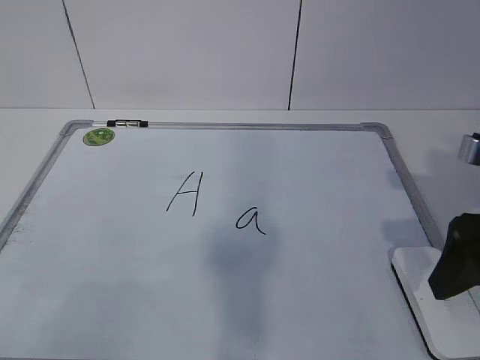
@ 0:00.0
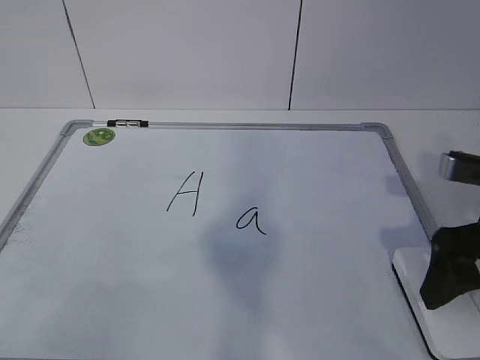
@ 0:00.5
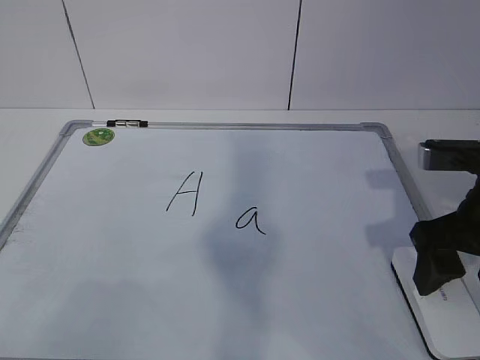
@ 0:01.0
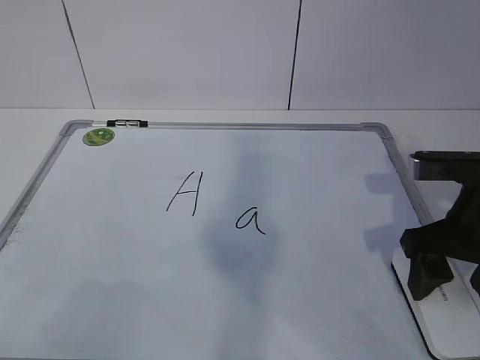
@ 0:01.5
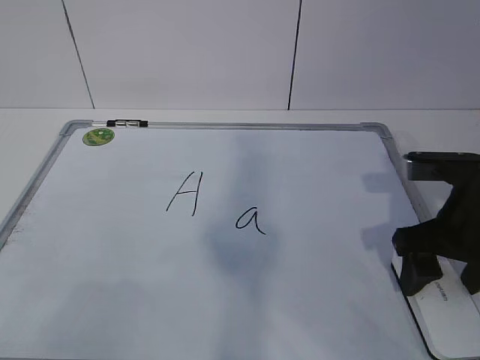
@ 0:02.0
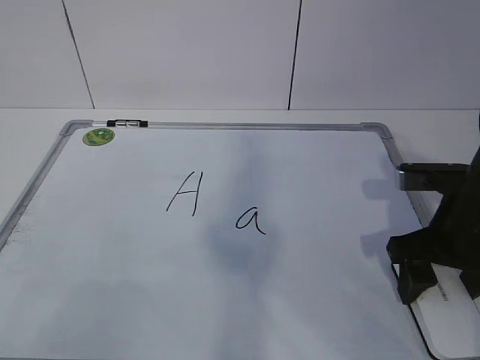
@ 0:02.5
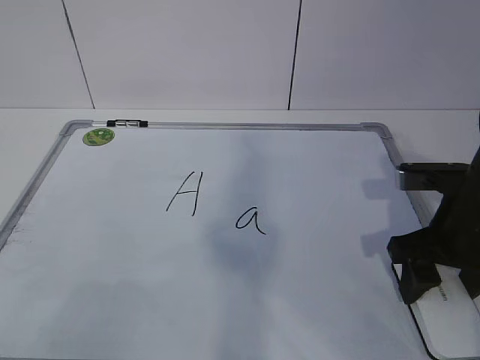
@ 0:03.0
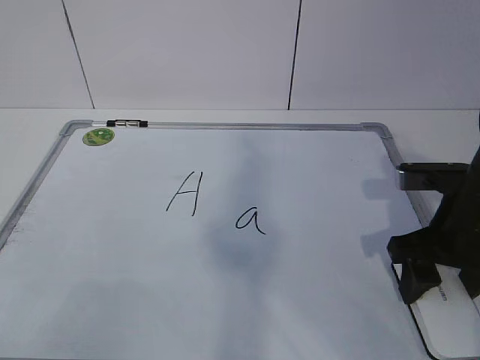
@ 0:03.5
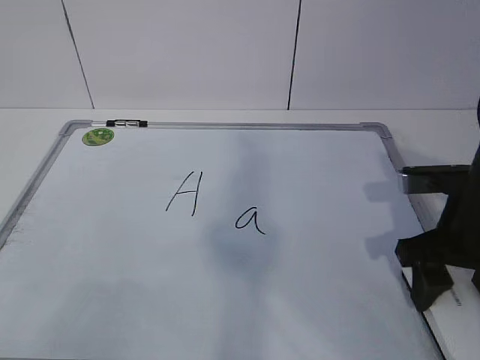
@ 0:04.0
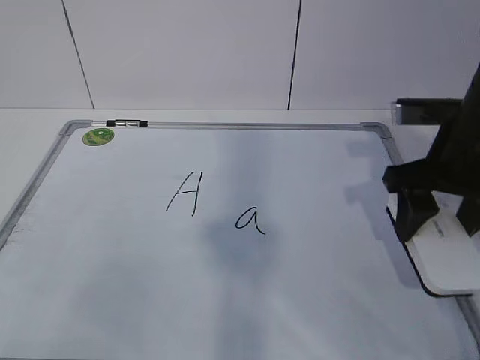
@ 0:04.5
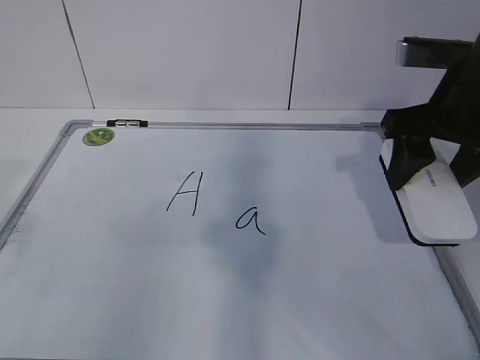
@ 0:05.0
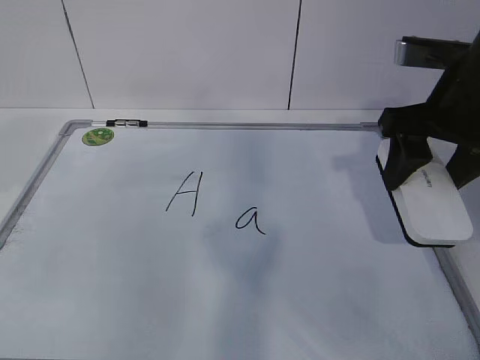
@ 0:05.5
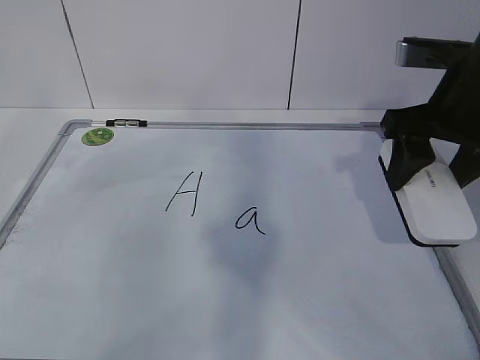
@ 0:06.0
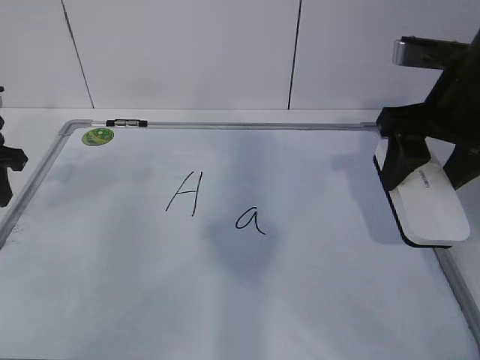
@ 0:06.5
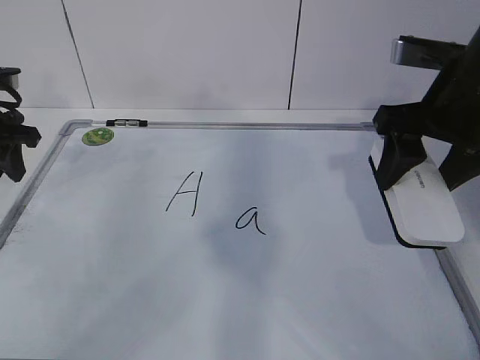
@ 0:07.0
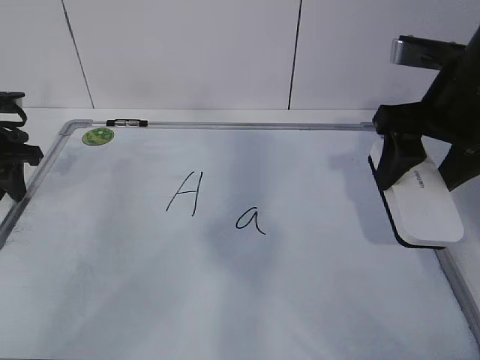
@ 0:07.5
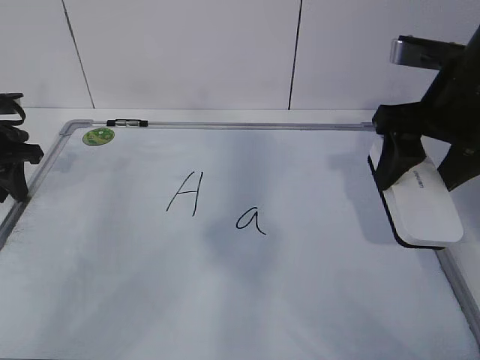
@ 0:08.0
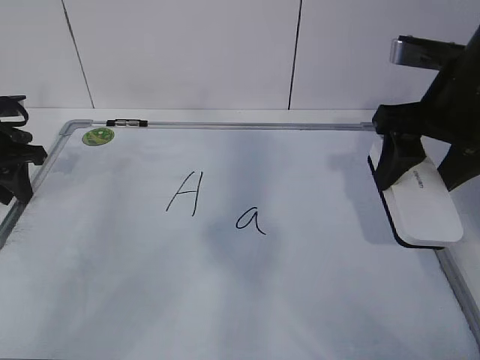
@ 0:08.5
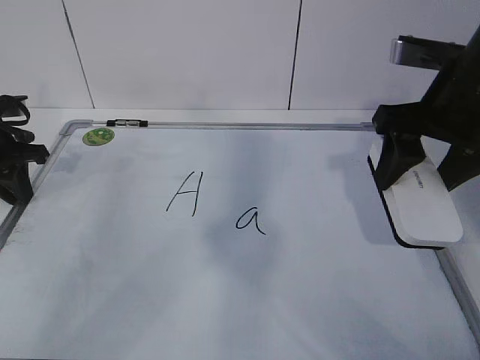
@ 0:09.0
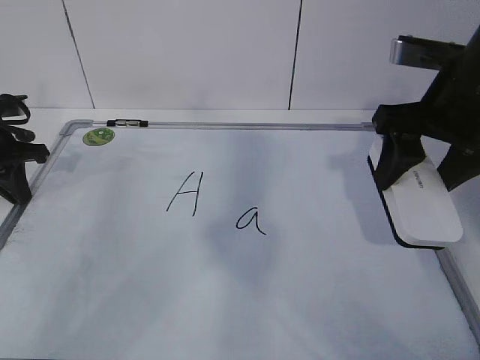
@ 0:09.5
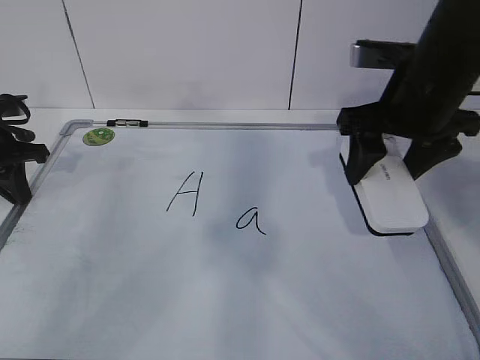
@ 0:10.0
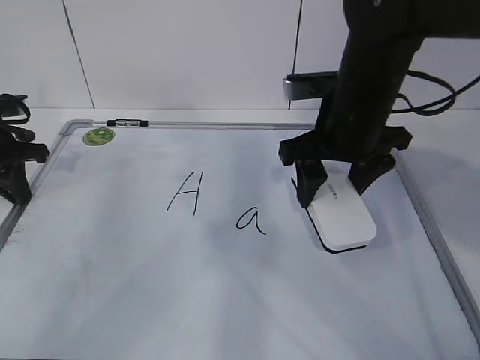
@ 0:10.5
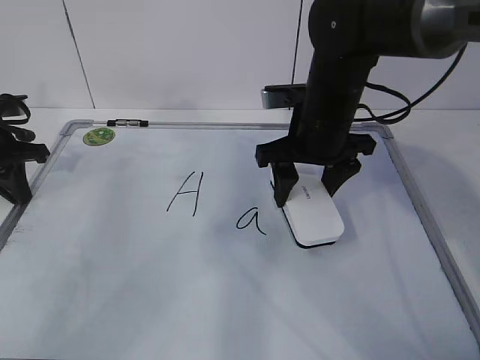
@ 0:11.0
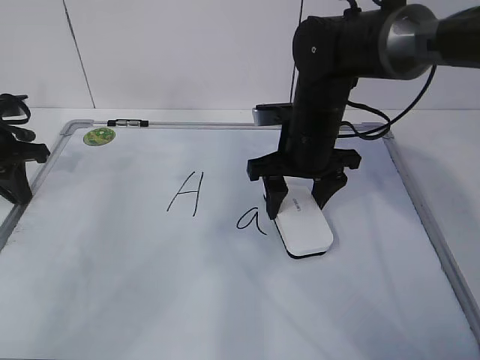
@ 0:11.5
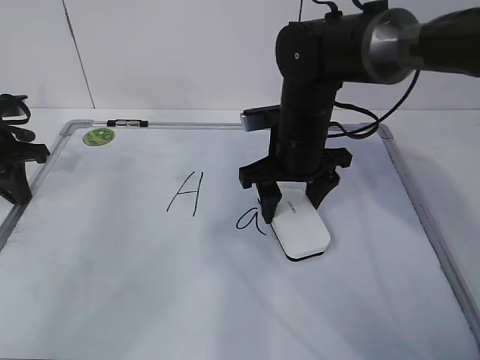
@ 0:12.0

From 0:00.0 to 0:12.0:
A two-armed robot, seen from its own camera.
Task of the whole recording: pick up the eraser on the blackboard and erase the letter "a".
Step, from 0:00.0 to 0:02.0: Grab the eraser with your right hand.
Step, from 0:02.5 to 0:06.5: Hold the drawing board steady with your left hand.
Step, from 0:07.0 to 0:10.5: Erase the letter a with your right hand.
From 0:00.0 to 0:02.0: The right gripper shifts by roughly 5 cm.
From 0:02.0 to 0:04.0: The right gripper closes its fingers.
From 0:04.0 to 0:06.0: The right gripper moves upward, approximately 10 cm.
From 0:06.0 to 0:08.0: The left gripper heads downward and forward, covering approximately 15 cm.
From 0:08.0 to 0:10.0: The left gripper closes.
From 0:10.0 to 0:12.0: The right gripper goes roughly 15 cm to the left, downward and forward.

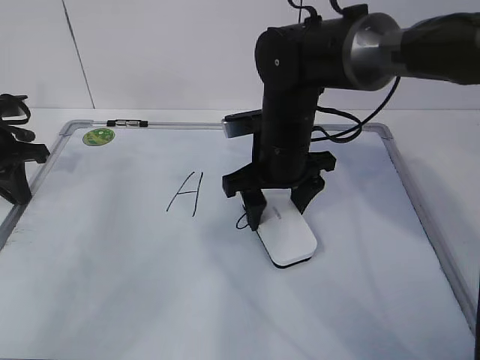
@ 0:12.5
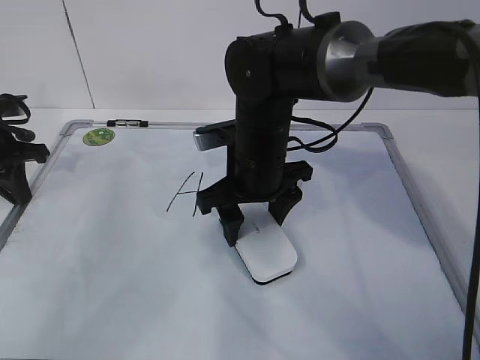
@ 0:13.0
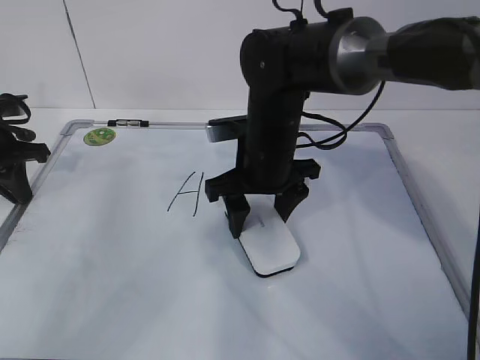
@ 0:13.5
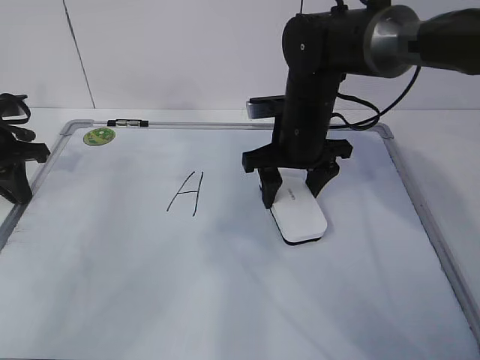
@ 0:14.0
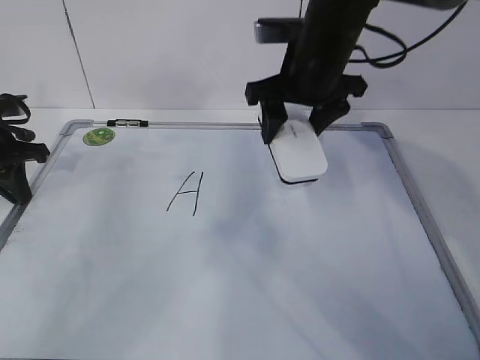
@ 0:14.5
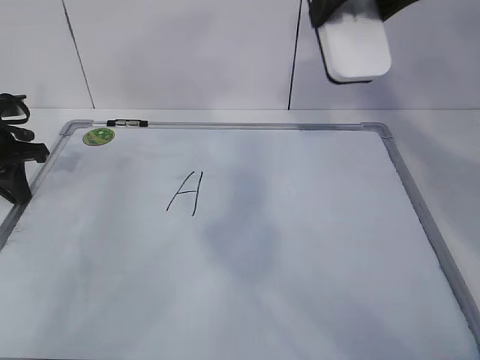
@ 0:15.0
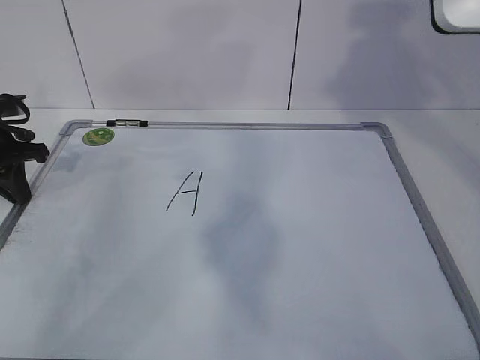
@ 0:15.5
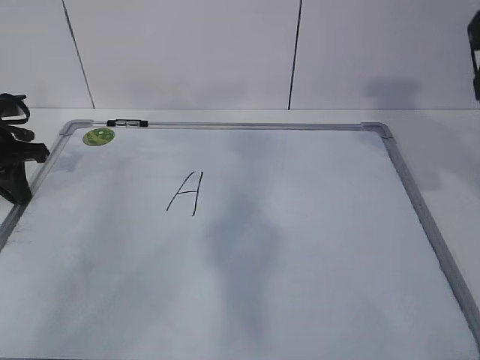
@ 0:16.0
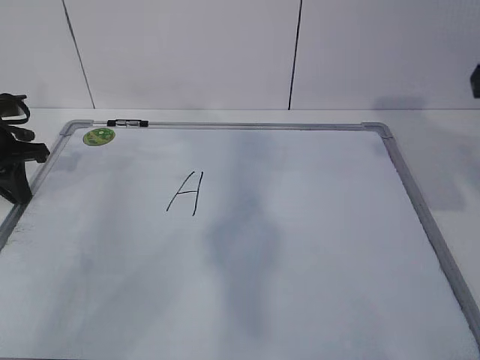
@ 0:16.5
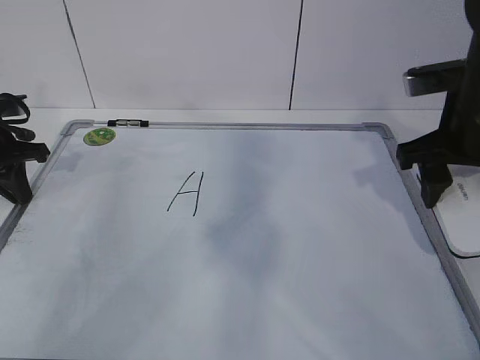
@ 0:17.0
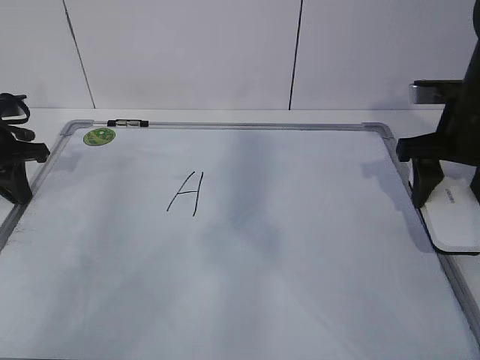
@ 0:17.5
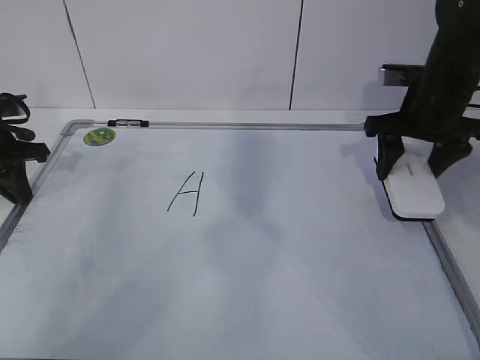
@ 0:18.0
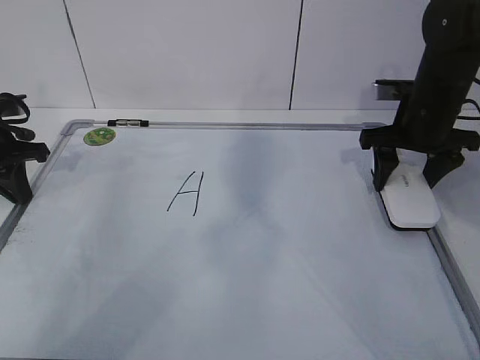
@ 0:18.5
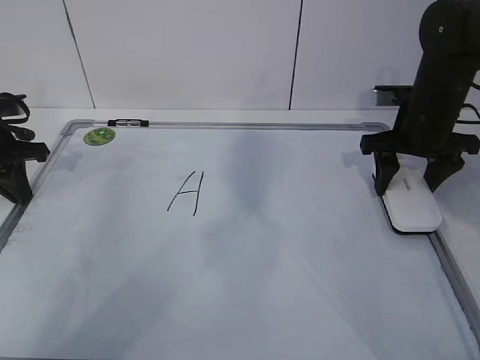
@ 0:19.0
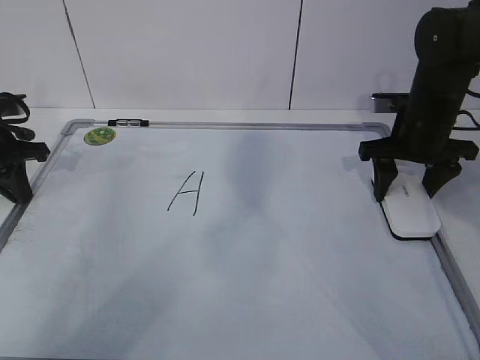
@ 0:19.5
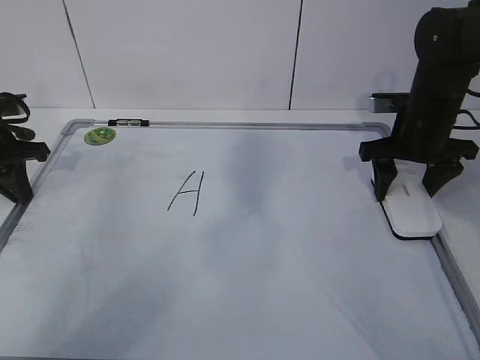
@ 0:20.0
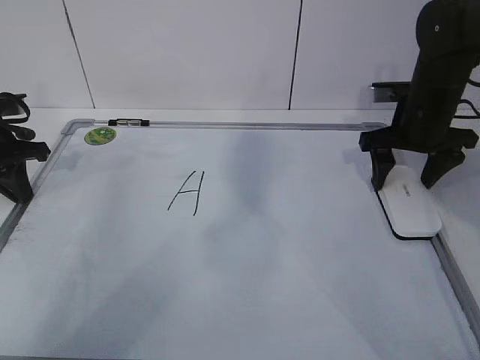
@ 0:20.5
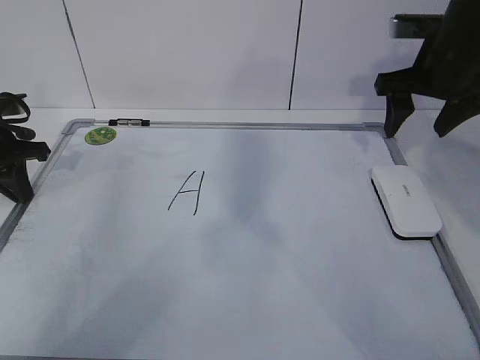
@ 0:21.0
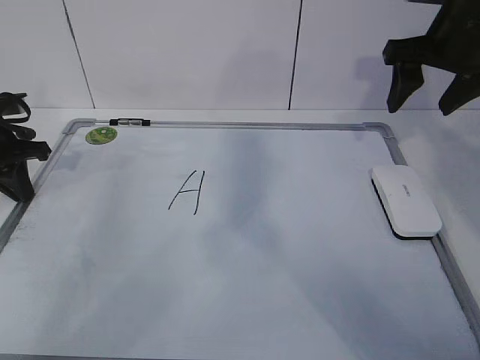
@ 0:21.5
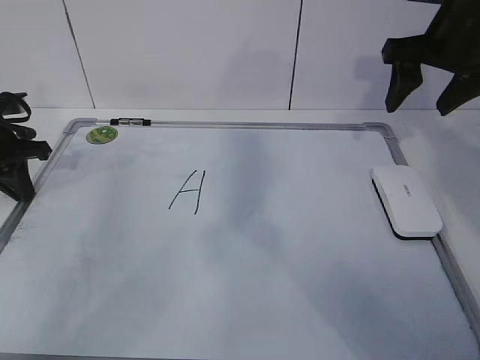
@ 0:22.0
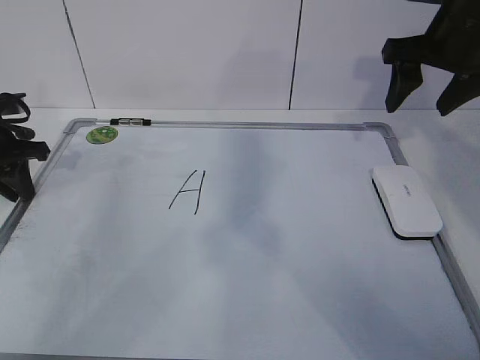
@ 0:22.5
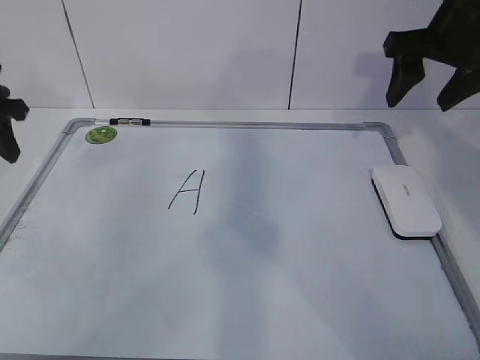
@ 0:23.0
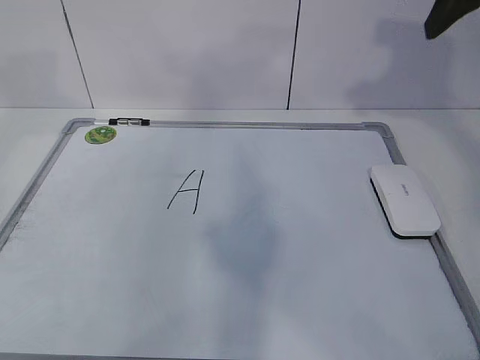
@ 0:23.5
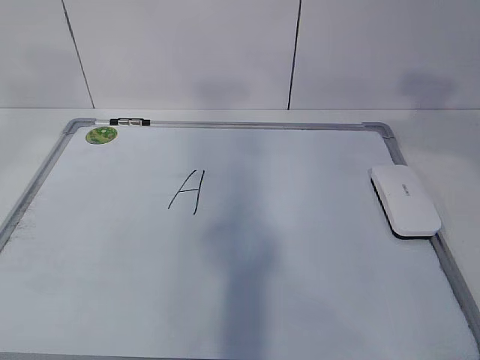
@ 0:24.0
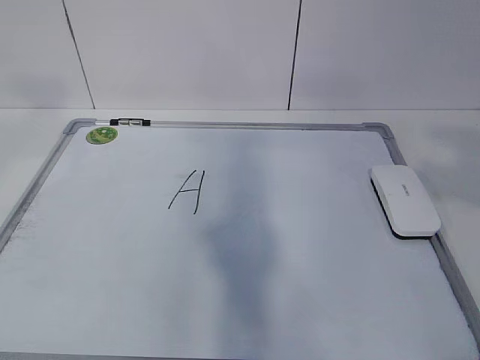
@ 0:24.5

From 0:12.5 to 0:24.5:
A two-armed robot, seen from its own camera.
Task of the whole recording: pick up the eraser on the blackboard and erase the letter "a".
Step, from 0:12.5 to 0:15.5: Put down the eraser with your right hand.
From 0:12.5 to 0:14.5: The right gripper shifts roughly 10 cm upward.
From 0:14.5 to 0:16.5: The right gripper is displaced to the right, backward and upward by some 20 cm.
From 0:16.5 to 0:18.5: The right gripper shifts roughly 20 cm forward and downward.
From 0:18.5 to 0:20.5: The right gripper opens.
From 0:20.5 to 0:22.5: The left gripper opens, while the right gripper moves upward, approximately 10 cm.
From 0:22.5 to 0:24.5: The right gripper is displaced backward by approximately 30 cm. The left gripper heads upward and backward, covering roughly 40 cm.

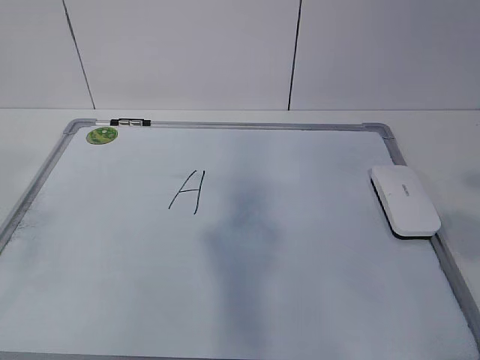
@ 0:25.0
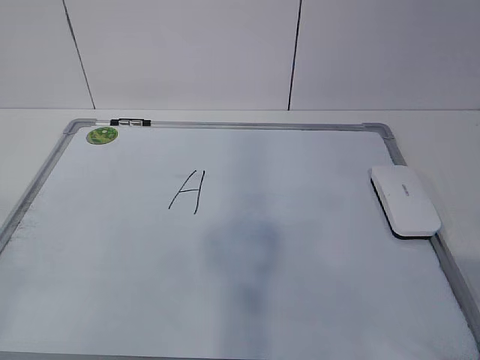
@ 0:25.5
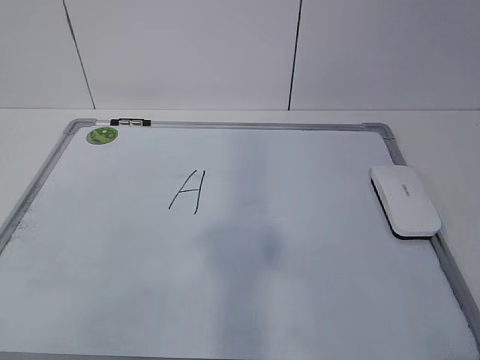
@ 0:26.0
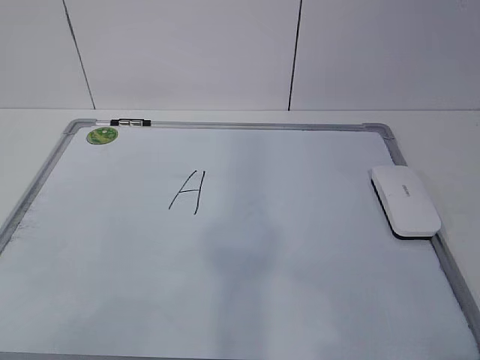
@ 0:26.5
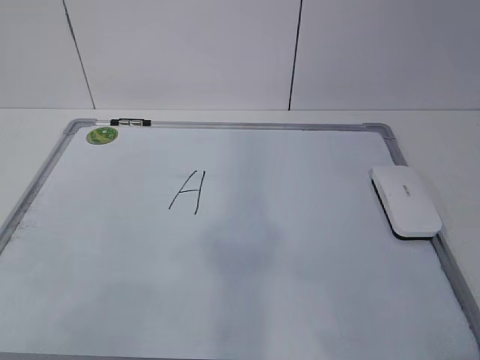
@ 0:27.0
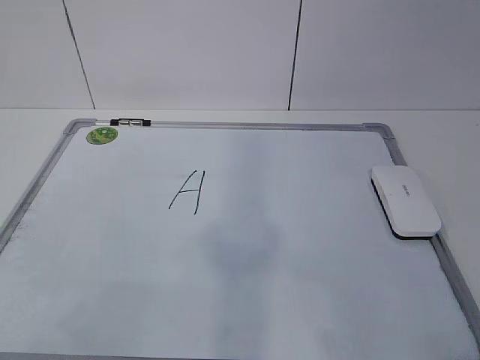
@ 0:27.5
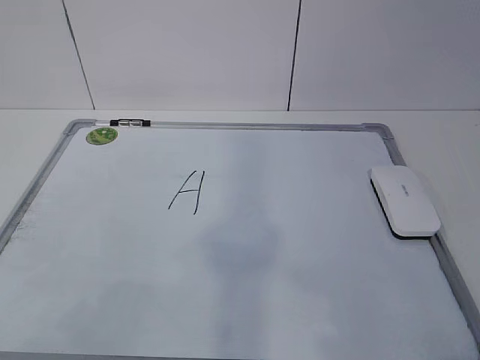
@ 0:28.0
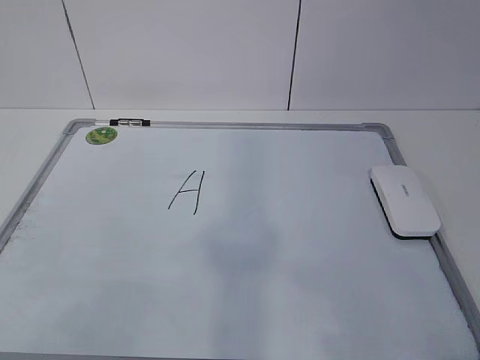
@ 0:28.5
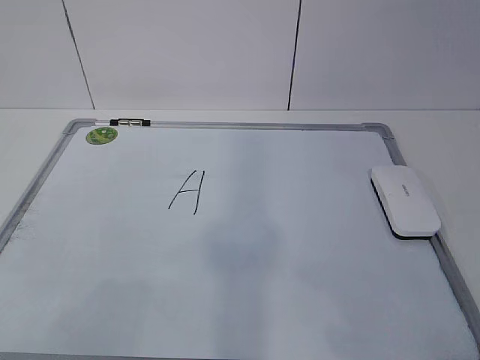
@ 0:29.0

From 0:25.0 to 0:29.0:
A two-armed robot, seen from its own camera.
Task of the whole recording: pick up the eraser on the blackboard and erase the letter "a".
From 0:25.0 to 0:27.0: The grippers both shift downward by roughly 15 cm.
